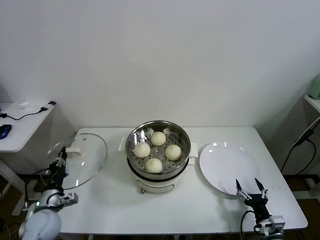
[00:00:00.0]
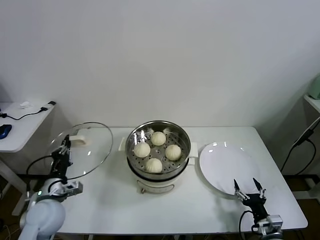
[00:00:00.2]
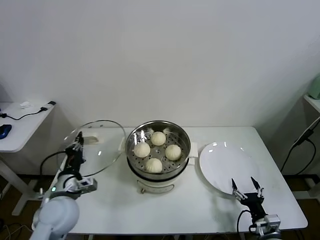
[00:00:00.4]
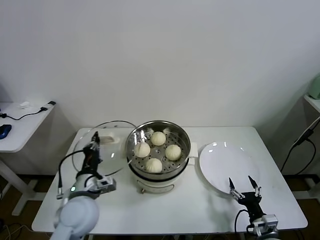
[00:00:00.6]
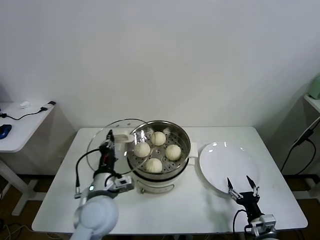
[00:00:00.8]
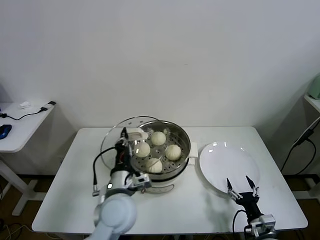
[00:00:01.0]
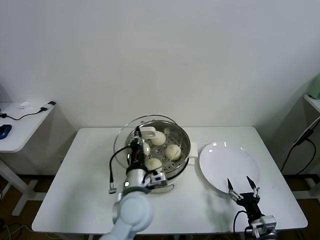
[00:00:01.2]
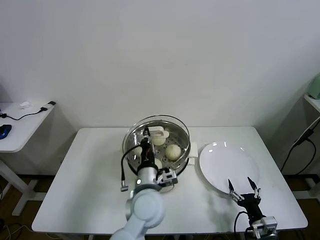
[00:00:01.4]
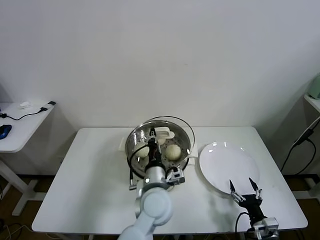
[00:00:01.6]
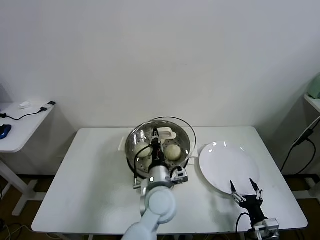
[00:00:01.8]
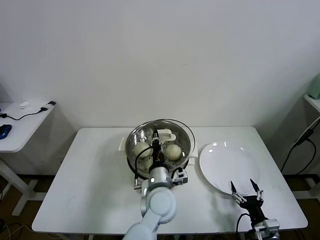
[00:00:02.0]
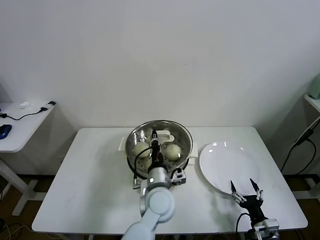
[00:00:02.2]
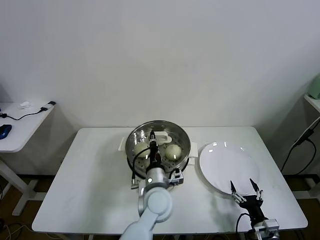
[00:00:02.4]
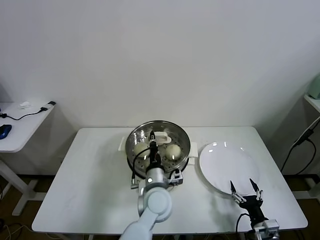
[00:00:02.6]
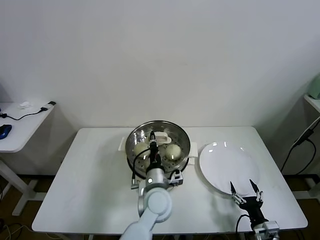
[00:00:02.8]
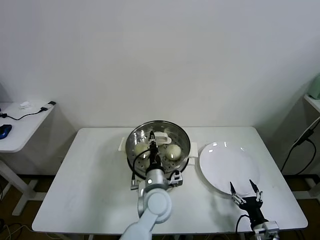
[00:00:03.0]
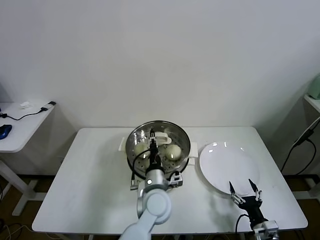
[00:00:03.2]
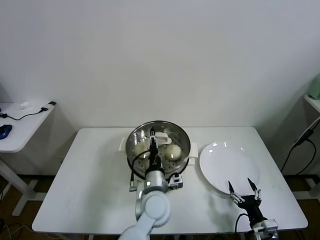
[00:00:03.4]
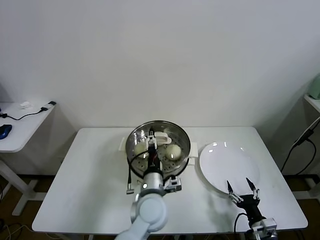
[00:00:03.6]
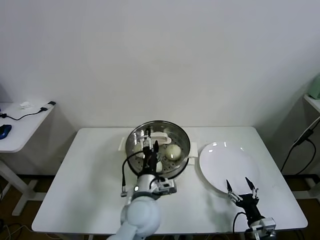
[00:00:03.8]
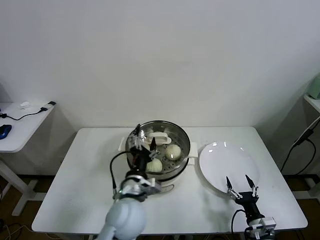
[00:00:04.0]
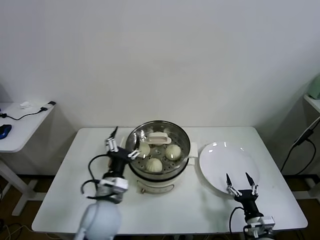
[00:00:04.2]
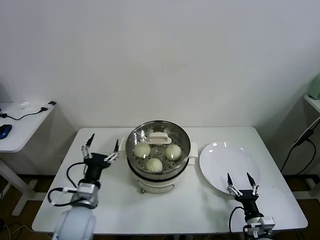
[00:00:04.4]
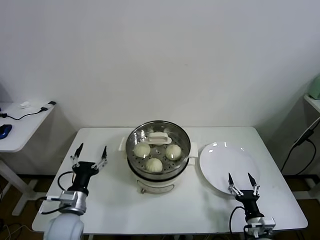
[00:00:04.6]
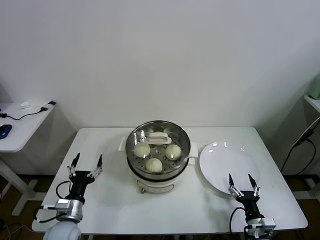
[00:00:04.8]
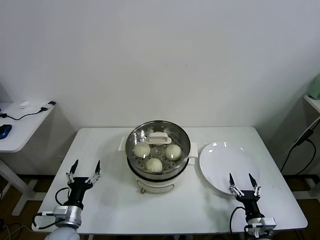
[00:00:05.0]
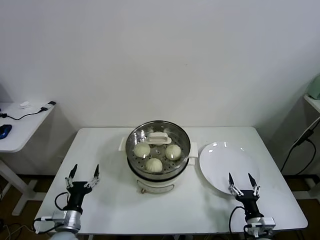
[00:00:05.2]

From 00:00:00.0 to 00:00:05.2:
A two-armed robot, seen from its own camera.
Task of the whole recording: take steamed baozi put them in steamer.
Step, from 00:00:00.0 to 00:00:03.4: Place the pot lid on the steamer with left gripper.
From 00:00:00.0 to 00:00:01.8: The left gripper heads to the right, covering about 35 cm.
From 00:00:01.8 to 00:00:03.4: The left gripper opens.
From 00:00:03.4 to 00:00:05.2: The left gripper travels to the left by about 30 cm, and opens.
